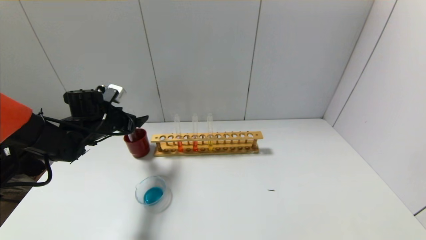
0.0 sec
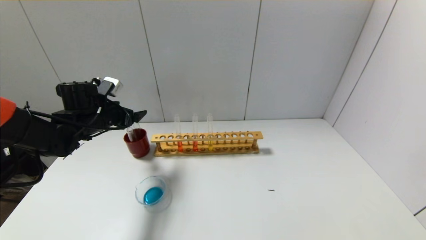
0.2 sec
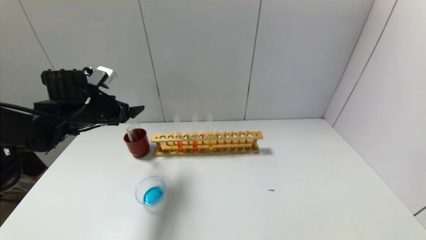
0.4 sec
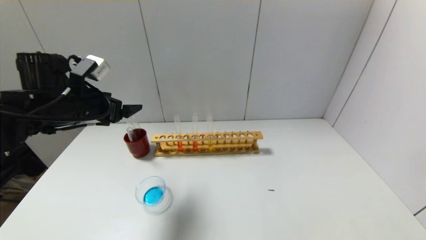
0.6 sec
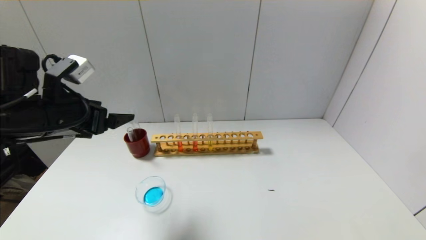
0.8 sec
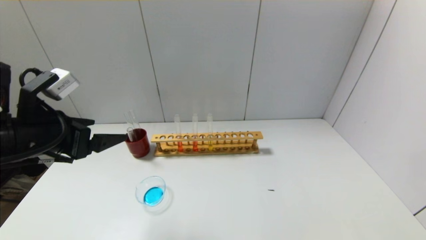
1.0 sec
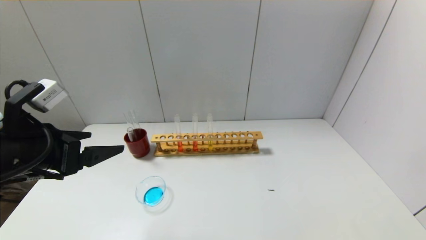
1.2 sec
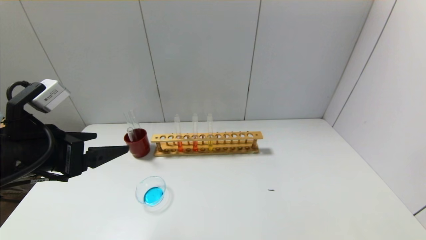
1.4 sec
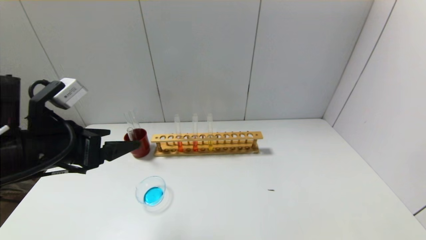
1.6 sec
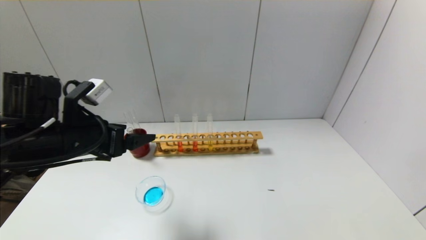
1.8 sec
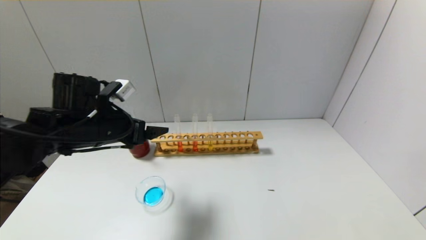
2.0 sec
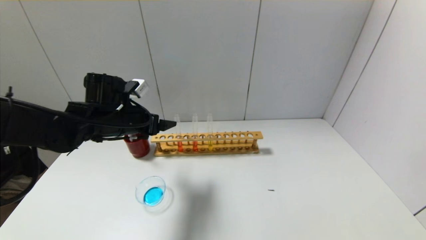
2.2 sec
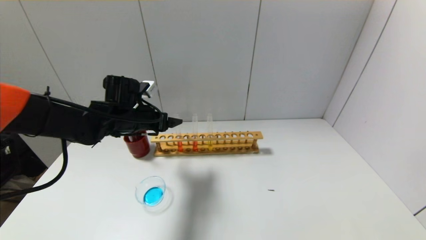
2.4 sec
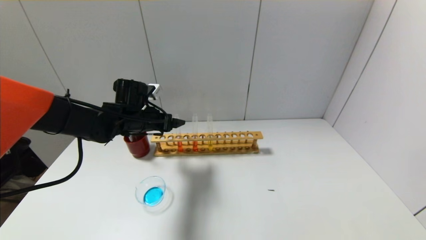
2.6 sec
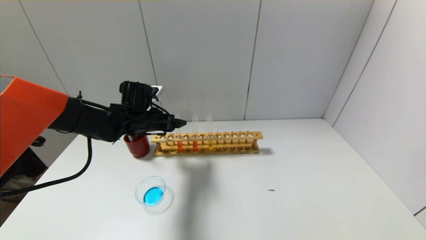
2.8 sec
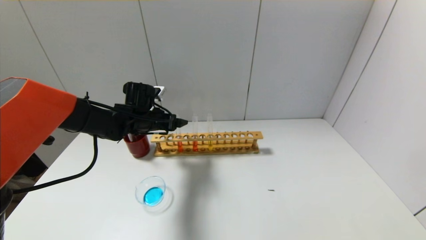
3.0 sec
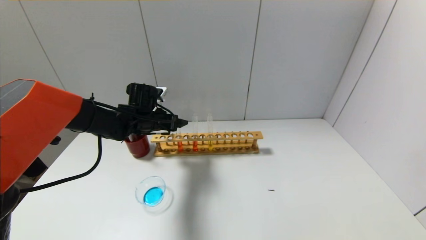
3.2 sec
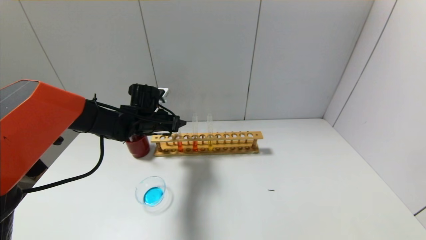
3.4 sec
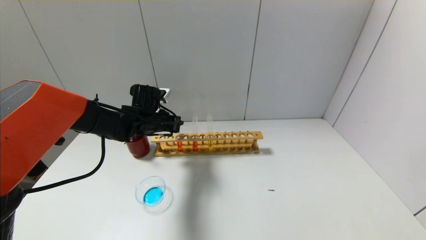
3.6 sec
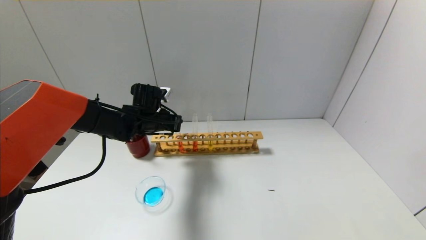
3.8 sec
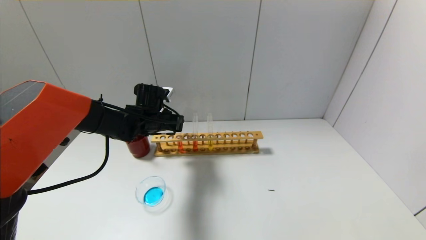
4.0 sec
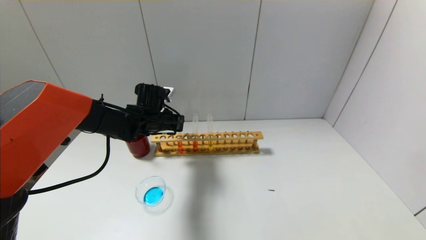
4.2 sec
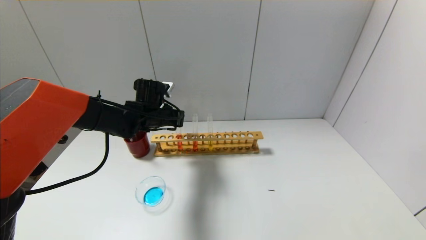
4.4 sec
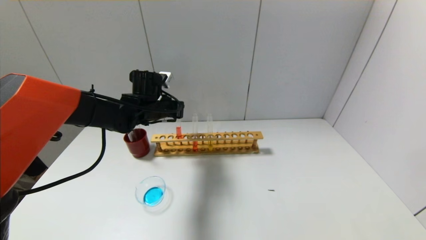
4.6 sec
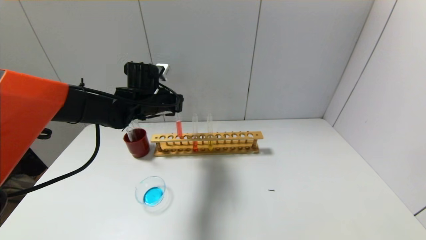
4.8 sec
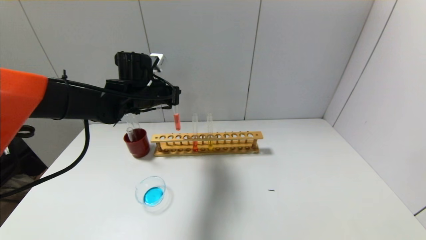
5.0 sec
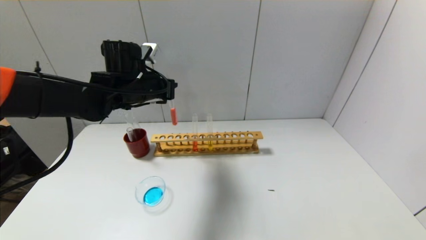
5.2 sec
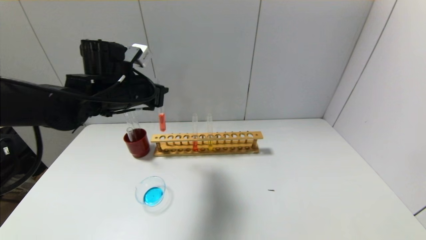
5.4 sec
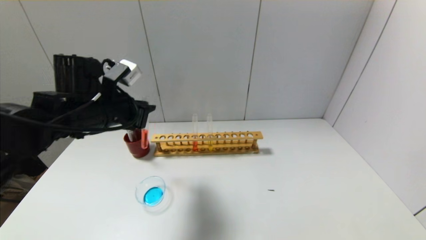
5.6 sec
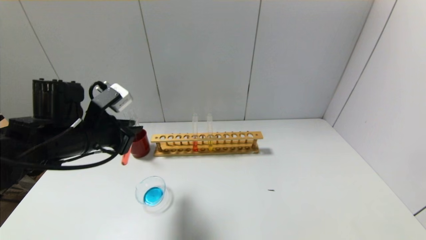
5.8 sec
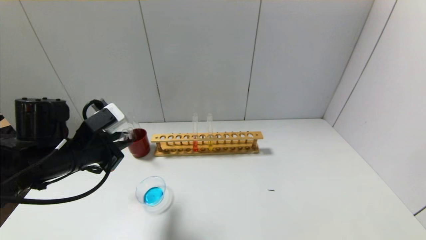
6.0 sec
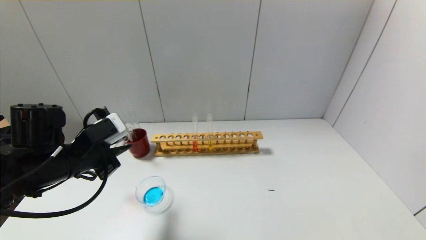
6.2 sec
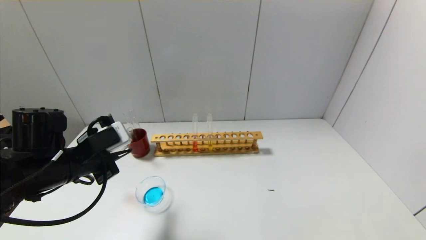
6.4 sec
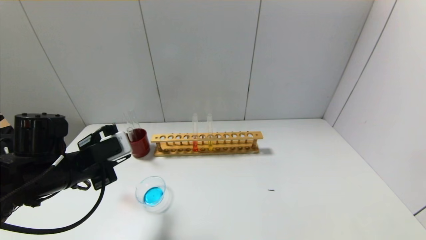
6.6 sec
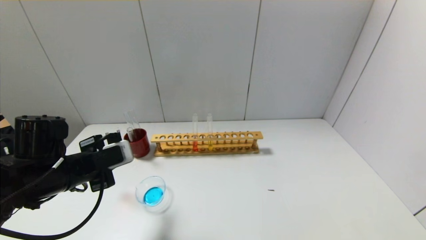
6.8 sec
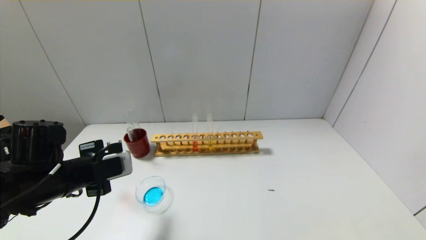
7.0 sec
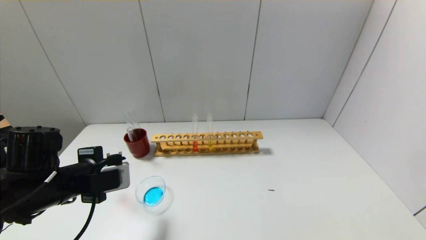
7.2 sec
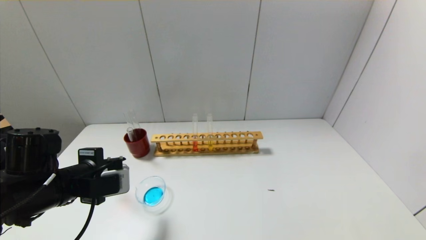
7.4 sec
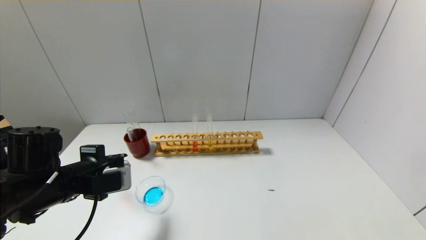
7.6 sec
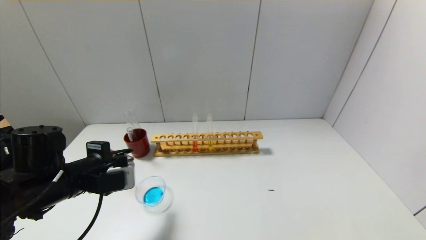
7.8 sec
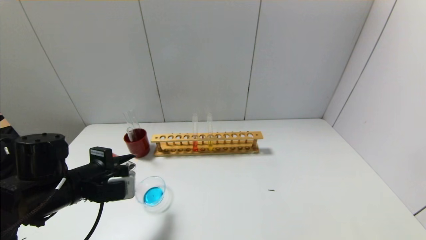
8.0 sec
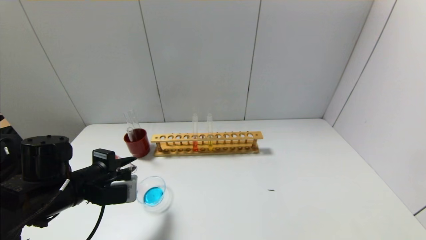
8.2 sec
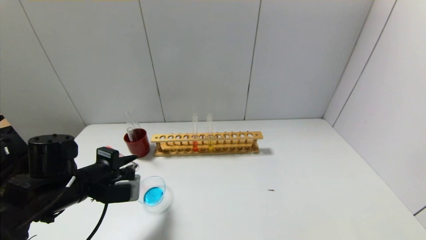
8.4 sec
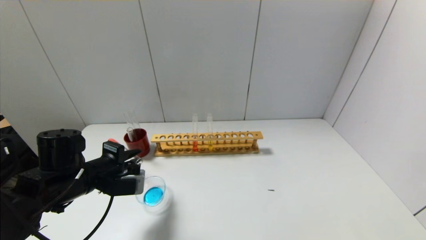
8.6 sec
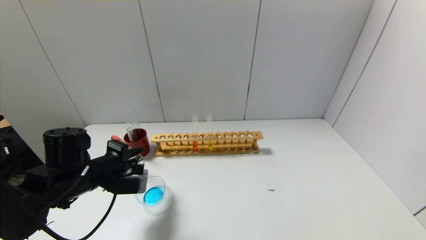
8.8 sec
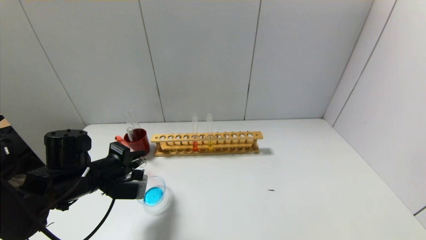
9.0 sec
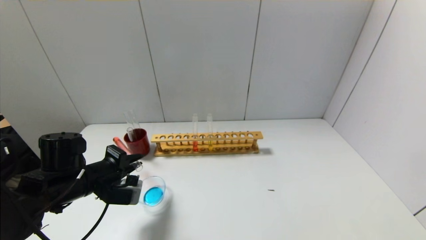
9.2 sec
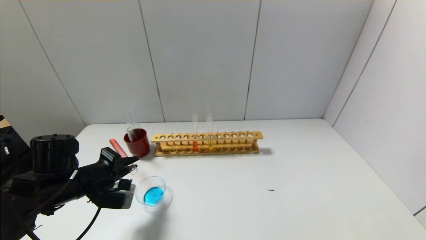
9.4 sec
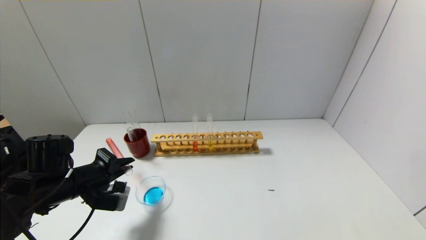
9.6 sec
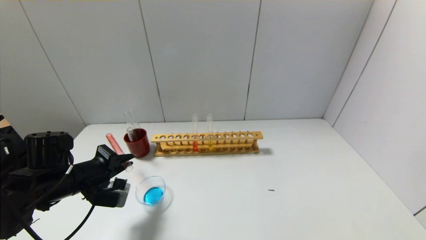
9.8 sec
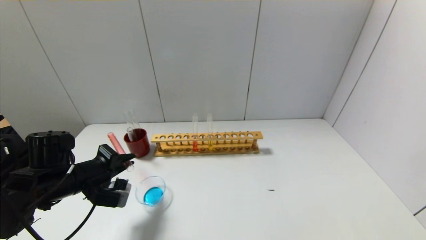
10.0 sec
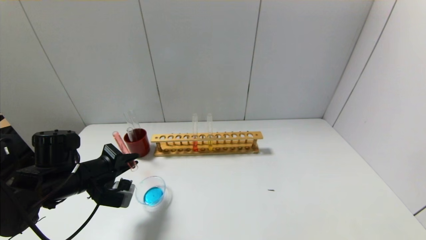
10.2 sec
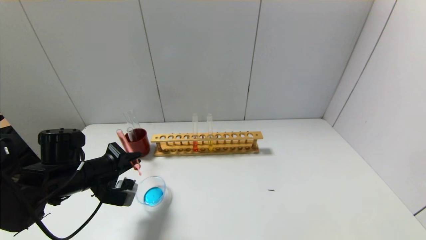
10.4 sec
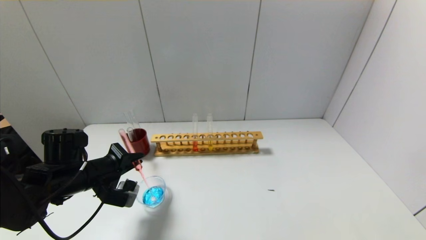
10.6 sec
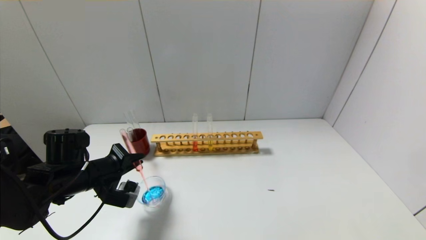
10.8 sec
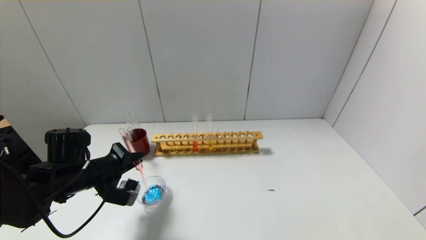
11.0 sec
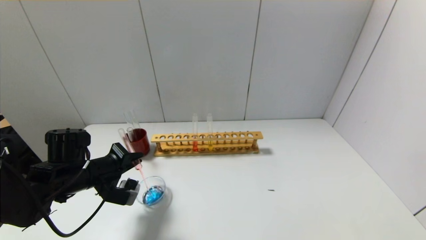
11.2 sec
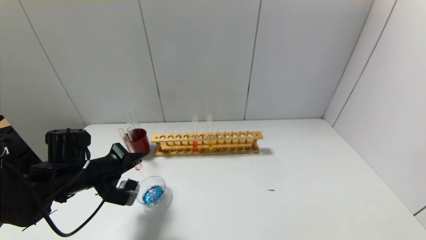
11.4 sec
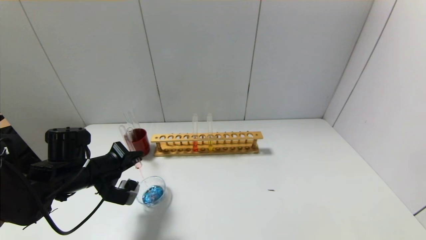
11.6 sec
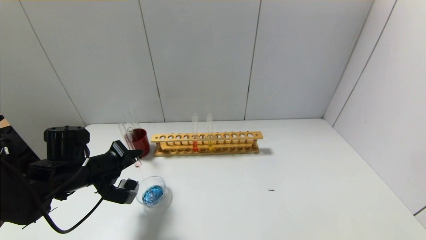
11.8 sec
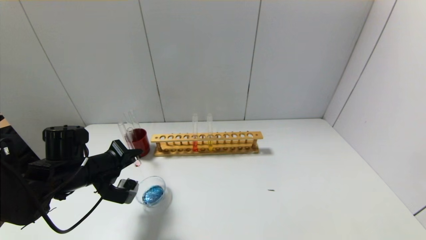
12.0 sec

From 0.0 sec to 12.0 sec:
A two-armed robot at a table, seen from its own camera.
Step, from 0.0 sec to 3.8 sec: Grasp the red reagent with the left gripper.
From 0.0 sec to 1.6 sec: The left gripper moves backward and upward, some 20 cm.
From 1.6 sec to 3.0 sec: The left gripper goes about 25 cm forward and downward.
From 3.0 sec to 4.4 sec: The left gripper closes its fingers.
From 4.4 sec to 6.0 sec: The left gripper moves backward and to the left, about 20 cm.
From 7.6 sec to 9.0 sec: The left gripper shifts by roughly 5 cm.
From 9.0 sec to 12.0 sec: There are only small adjustments of the grippers.

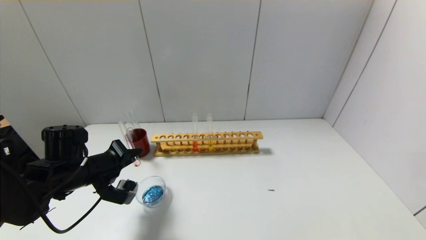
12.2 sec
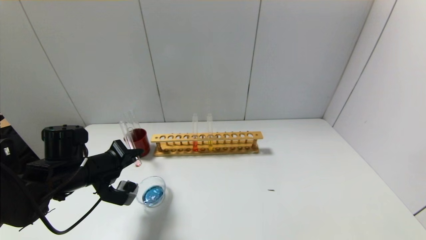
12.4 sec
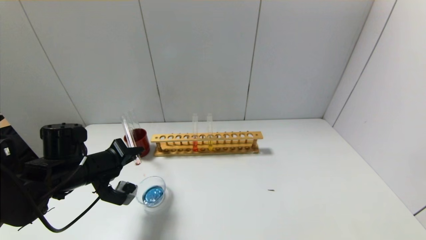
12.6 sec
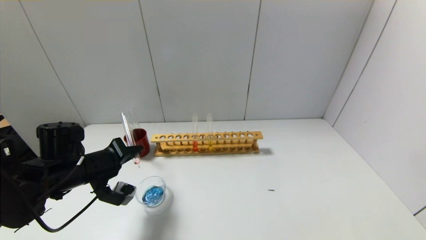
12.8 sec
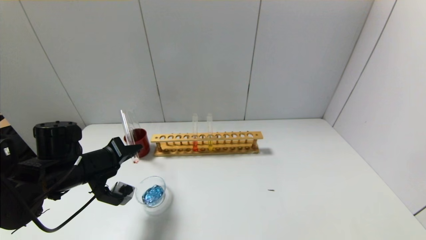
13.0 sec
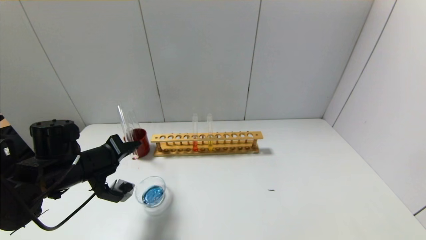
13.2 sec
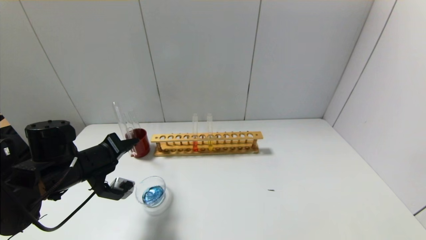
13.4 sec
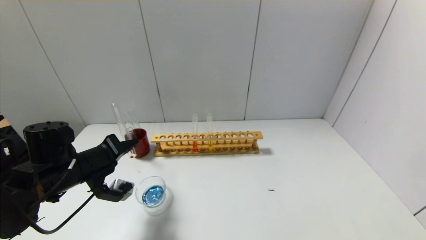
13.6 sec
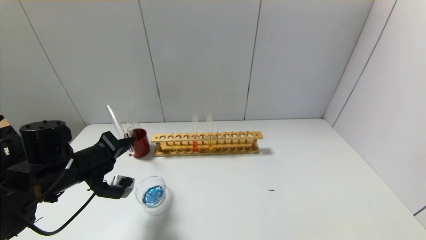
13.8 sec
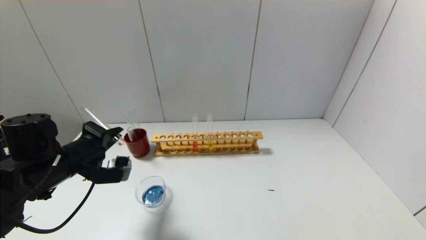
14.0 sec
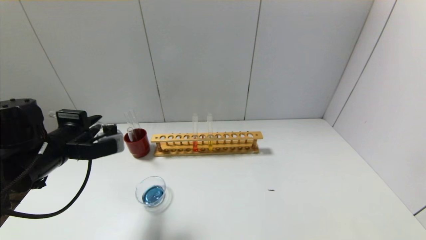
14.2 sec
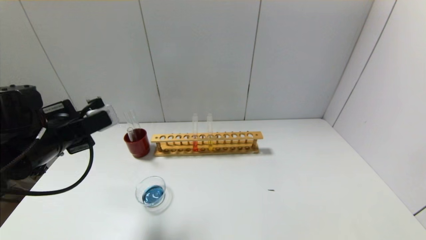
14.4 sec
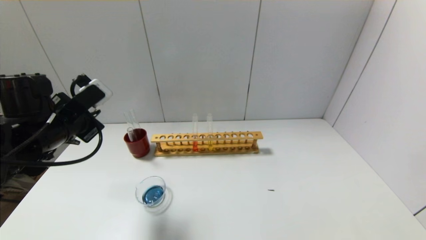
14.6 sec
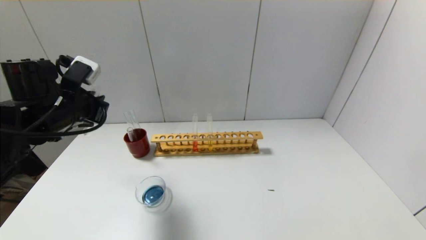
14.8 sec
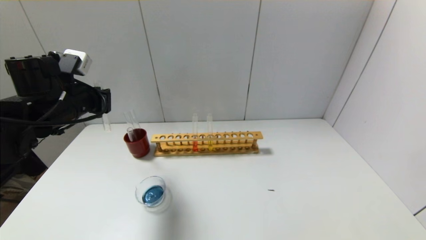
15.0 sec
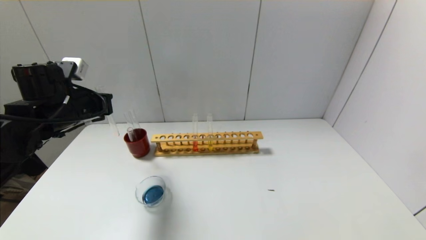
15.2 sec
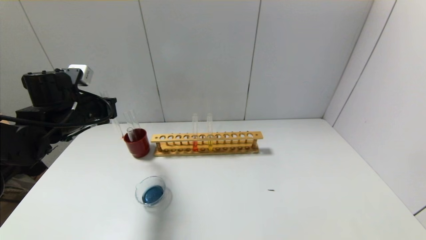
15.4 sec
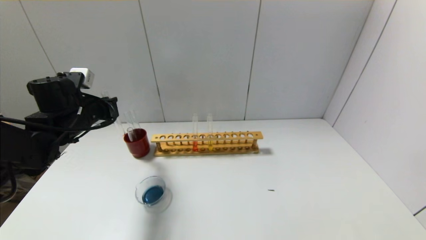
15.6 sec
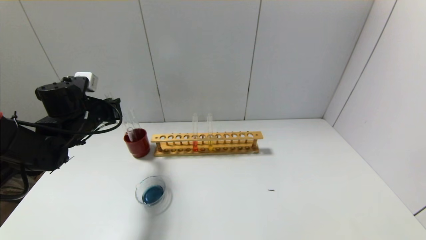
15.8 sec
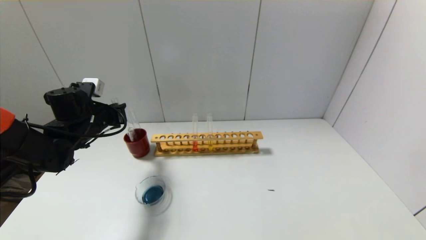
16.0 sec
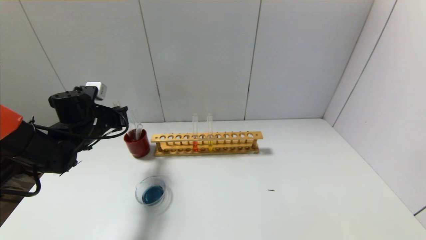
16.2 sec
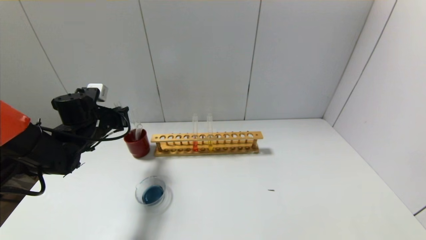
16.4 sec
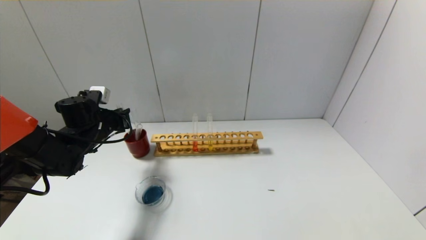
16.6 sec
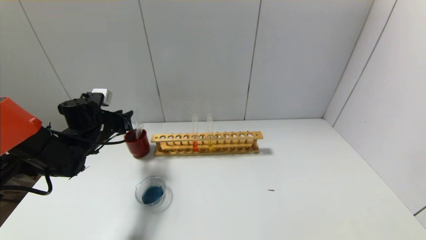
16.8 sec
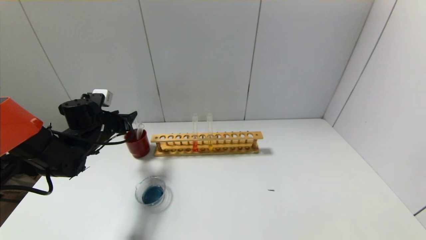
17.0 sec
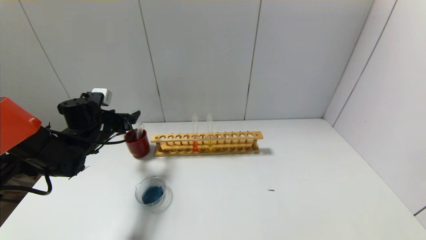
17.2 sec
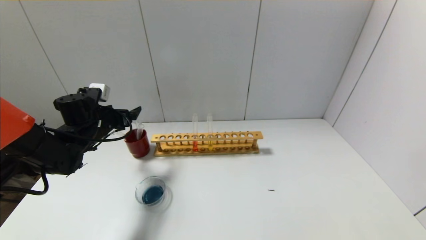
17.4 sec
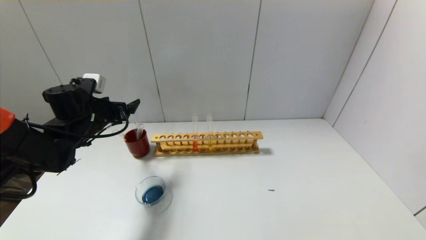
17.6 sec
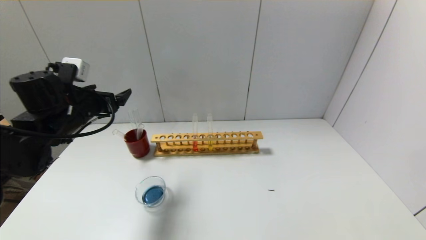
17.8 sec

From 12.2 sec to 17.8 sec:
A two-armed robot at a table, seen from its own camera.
Step, from 14.0 sec to 16.8 sec: Place the test tube into the brown cup with the left gripper.
From 12.2 sec to 13.6 sec: The grippers make only small movements.
From 13.6 sec to 15.0 sec: The left gripper heads upward and forward, covering about 10 cm.
From 15.0 sec to 16.4 sec: The left gripper goes some 10 cm downward and forward.
From 16.4 sec to 17.8 sec: The left gripper goes roughly 10 cm upward and backward, and opens.
